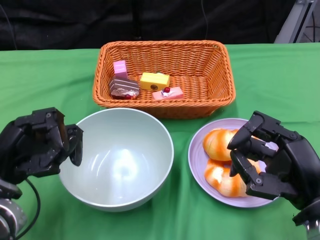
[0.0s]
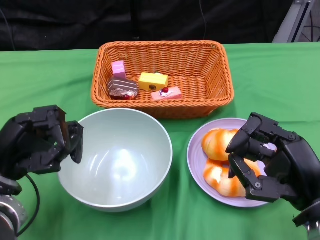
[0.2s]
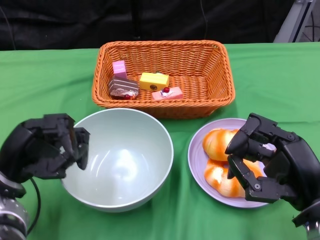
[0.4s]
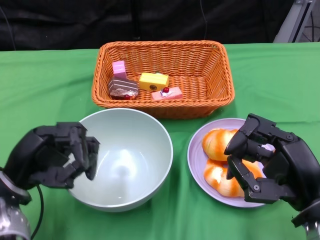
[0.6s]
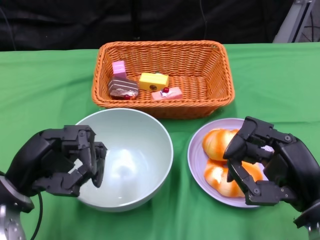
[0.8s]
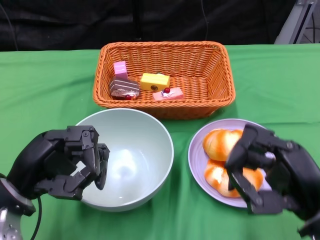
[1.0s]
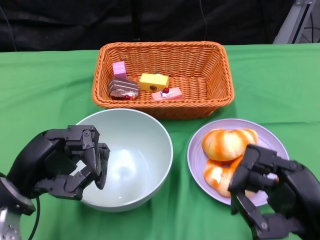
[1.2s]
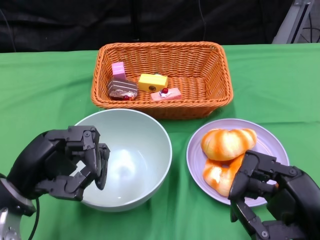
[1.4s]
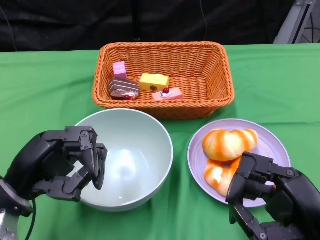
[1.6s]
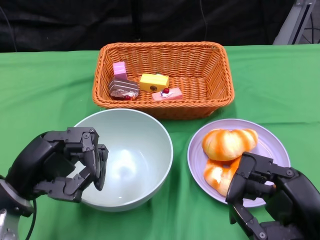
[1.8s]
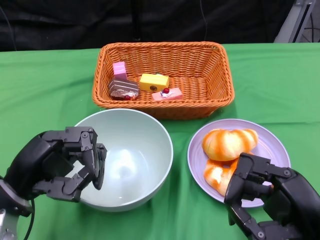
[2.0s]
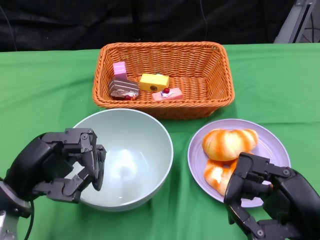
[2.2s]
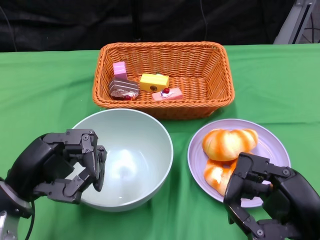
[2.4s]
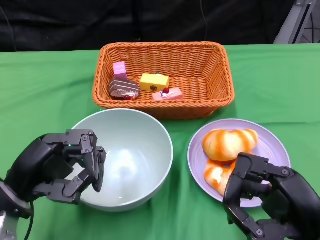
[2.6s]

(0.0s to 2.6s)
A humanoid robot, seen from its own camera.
0.0s - 1.2s: The left hand ends up approximately 5 cm from where it was.
1.2s - 2.6s: Neither hand changes place.

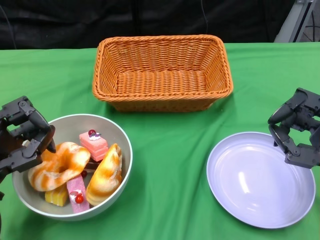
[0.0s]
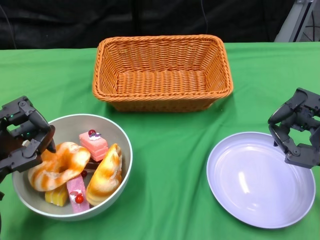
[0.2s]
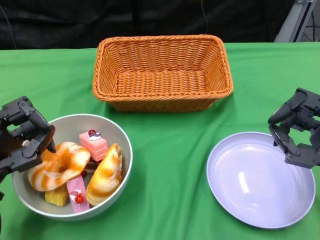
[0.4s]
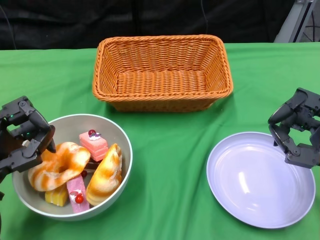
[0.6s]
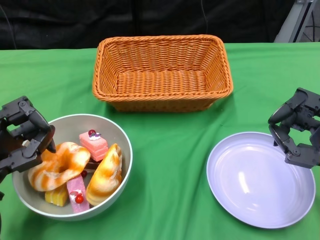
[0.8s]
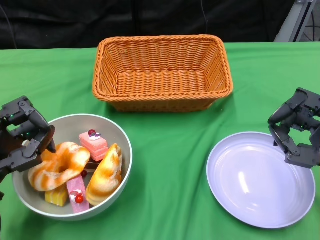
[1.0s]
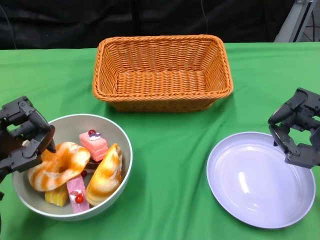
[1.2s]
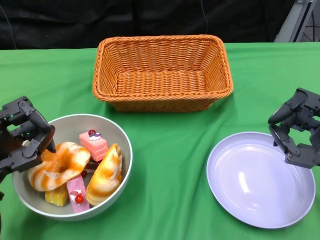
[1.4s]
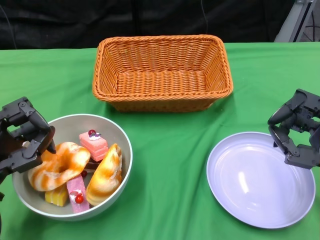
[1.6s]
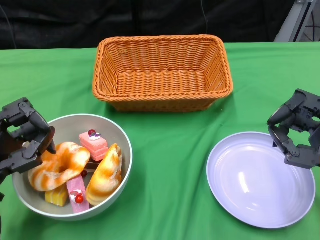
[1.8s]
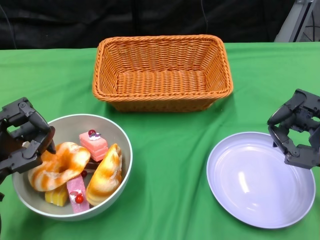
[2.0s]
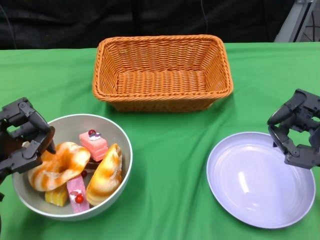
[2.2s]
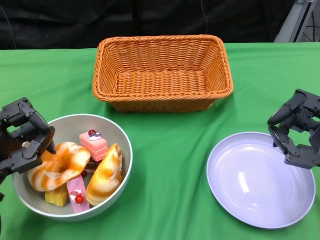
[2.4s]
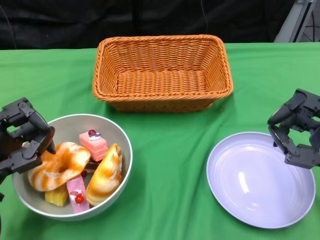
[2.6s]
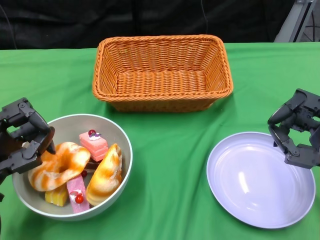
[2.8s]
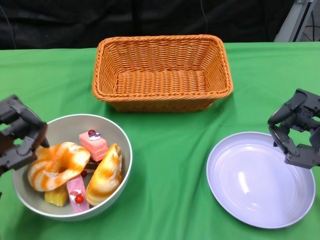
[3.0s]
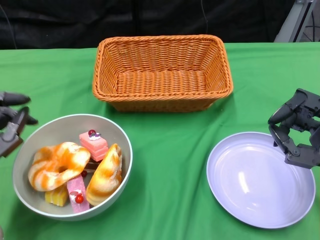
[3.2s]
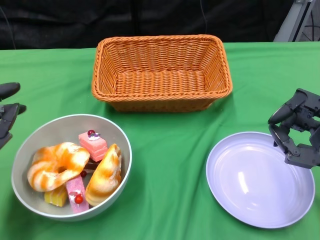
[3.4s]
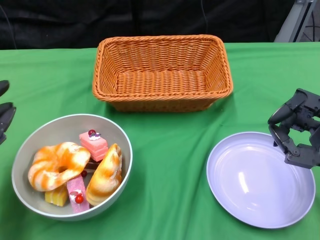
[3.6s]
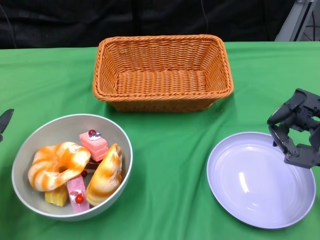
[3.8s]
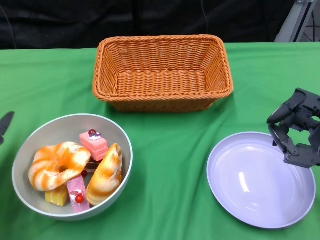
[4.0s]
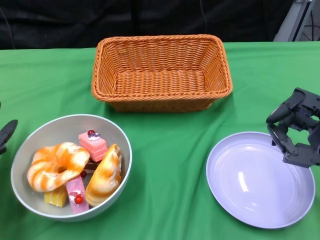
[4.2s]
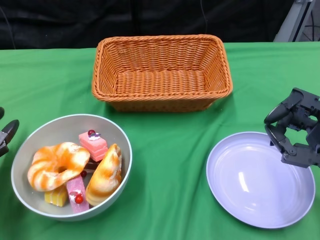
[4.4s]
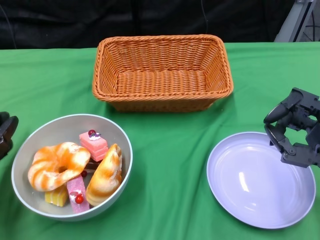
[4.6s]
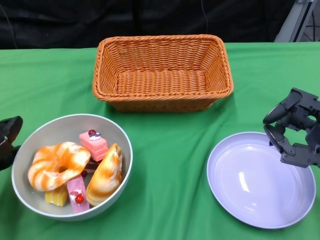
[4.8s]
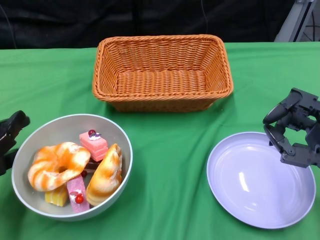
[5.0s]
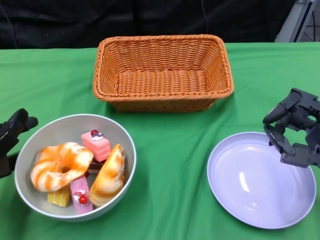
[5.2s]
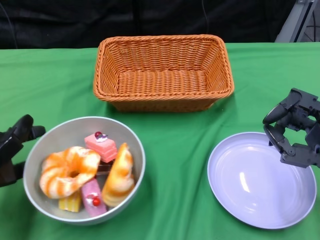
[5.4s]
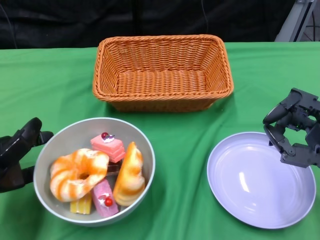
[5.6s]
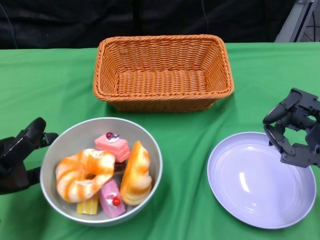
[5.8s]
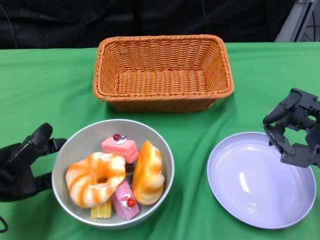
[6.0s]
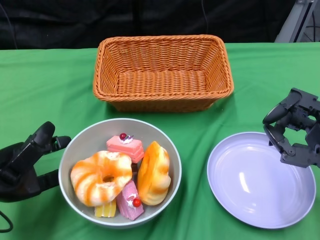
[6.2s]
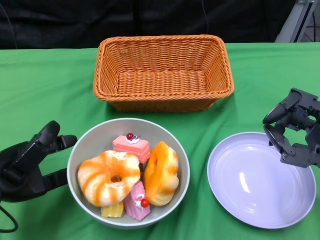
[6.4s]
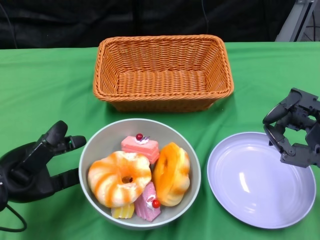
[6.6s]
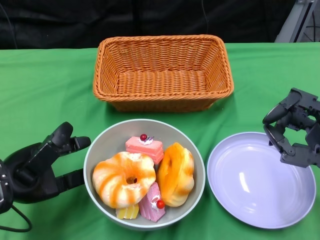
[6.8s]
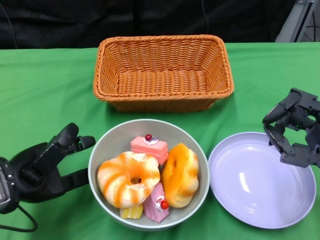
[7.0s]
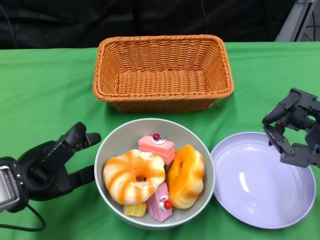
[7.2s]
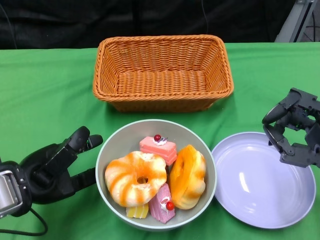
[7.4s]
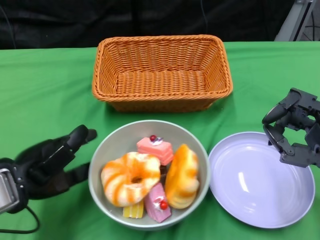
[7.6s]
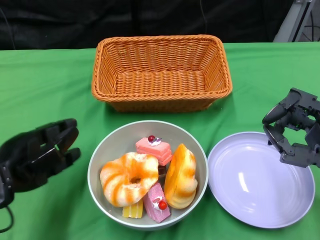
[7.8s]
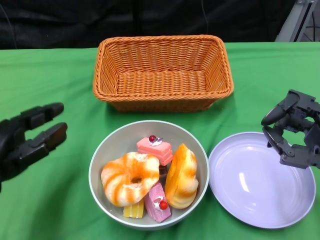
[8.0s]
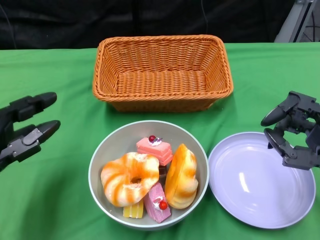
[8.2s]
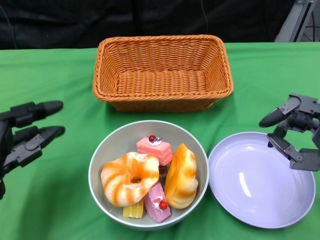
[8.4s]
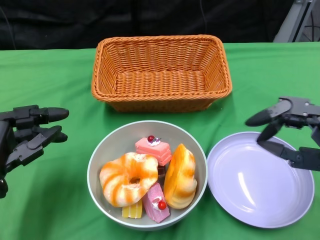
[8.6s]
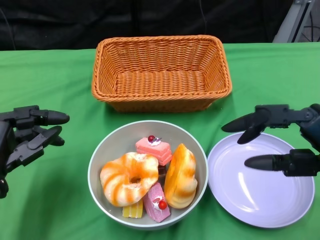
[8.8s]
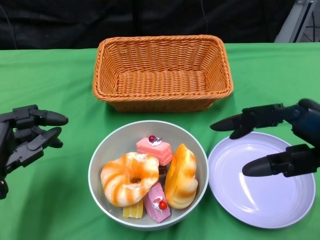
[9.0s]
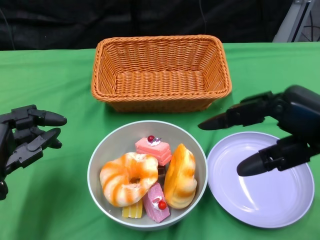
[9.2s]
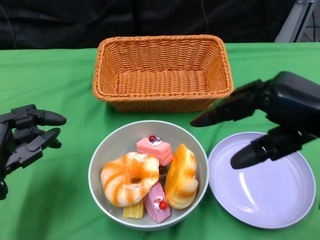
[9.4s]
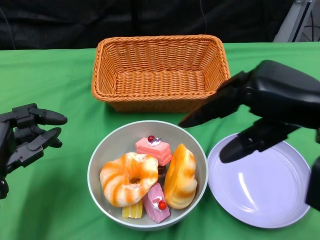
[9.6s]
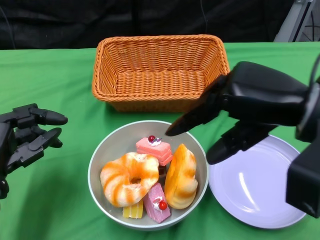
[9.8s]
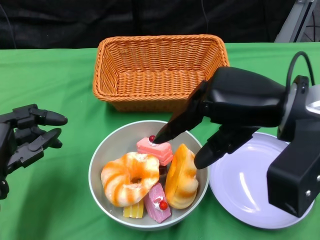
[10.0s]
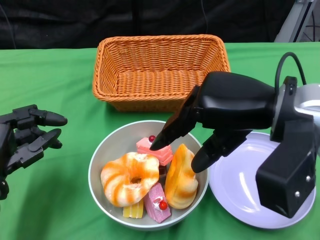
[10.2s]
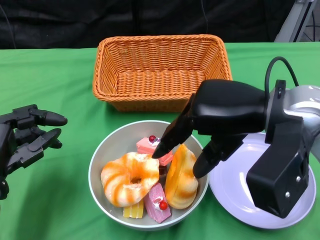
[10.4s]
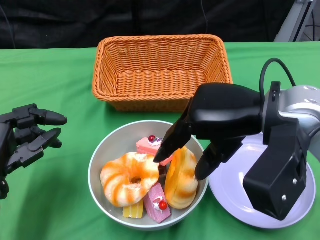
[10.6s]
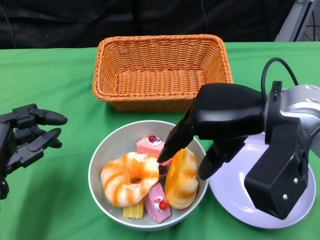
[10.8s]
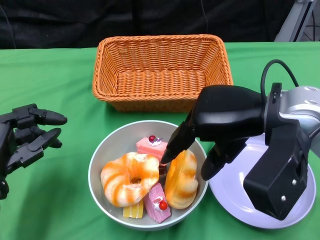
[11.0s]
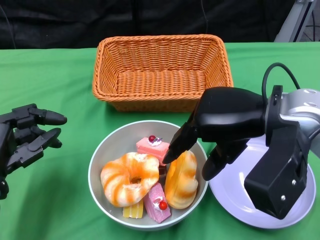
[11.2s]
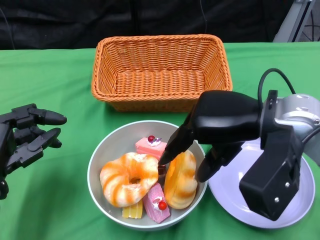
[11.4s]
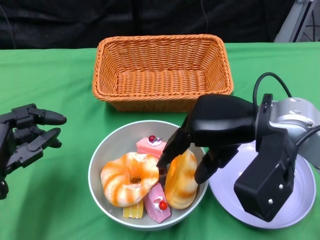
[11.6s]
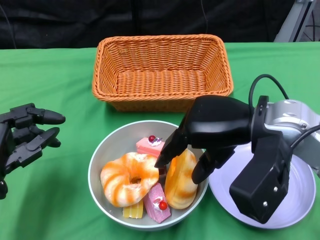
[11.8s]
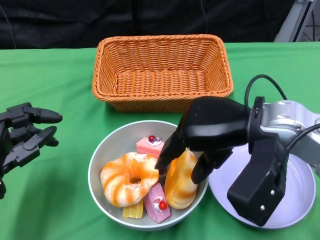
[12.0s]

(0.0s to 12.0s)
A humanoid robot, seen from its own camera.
Step, 0.0s - 8.0s: Push the bowl to the center of the table using the left gripper.
1.6s - 3.0s: The hands make only small movements.
3.0s - 4.4s: The left hand ends up roughly 5 cm from where it was.
7.6s - 9.0s: The right hand shifts approximately 10 cm upward.
9.0s - 10.4s: The right hand is displaced to the left and forward by approximately 10 cm.
10.4s - 12.0s: The hands make only small movements.

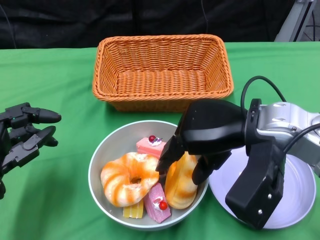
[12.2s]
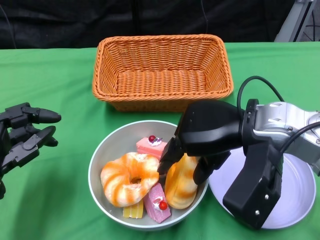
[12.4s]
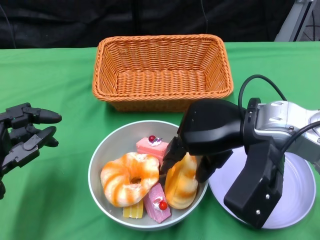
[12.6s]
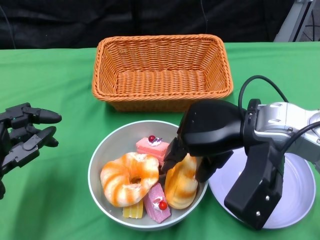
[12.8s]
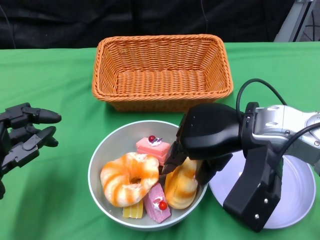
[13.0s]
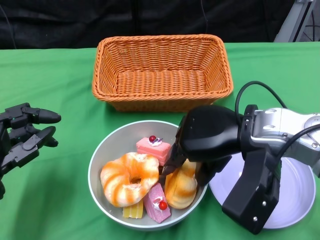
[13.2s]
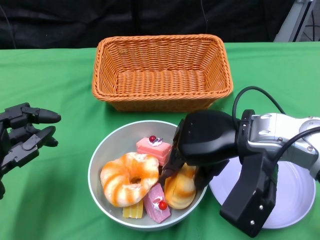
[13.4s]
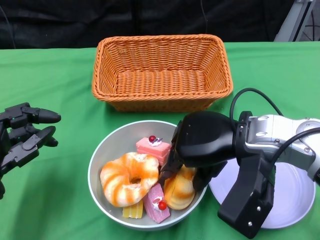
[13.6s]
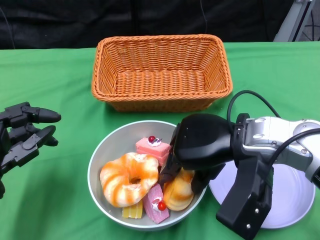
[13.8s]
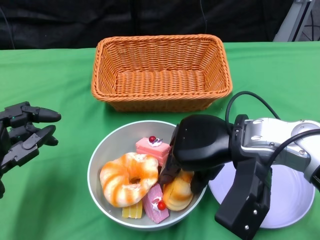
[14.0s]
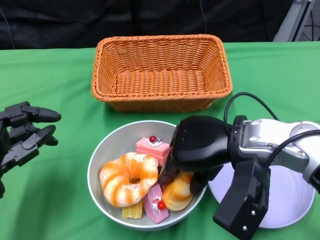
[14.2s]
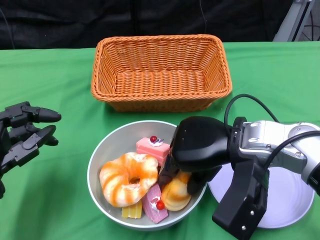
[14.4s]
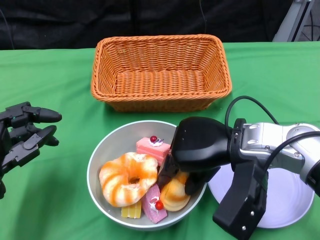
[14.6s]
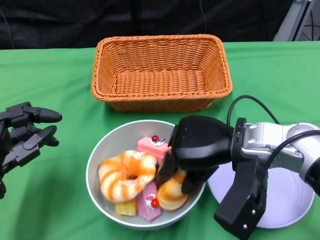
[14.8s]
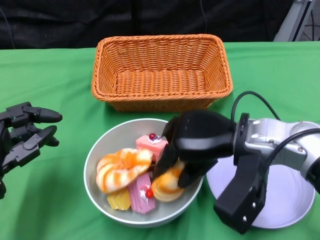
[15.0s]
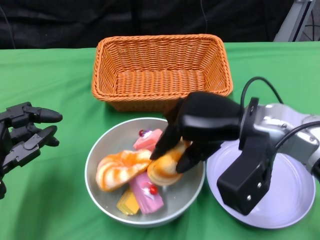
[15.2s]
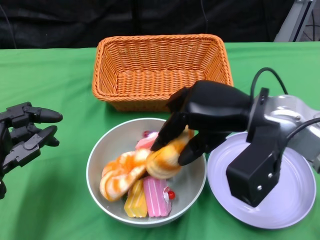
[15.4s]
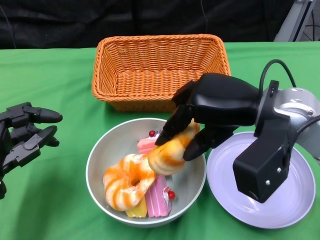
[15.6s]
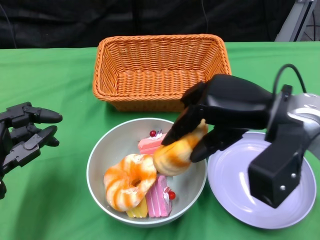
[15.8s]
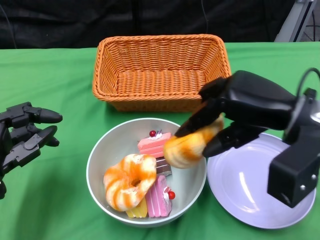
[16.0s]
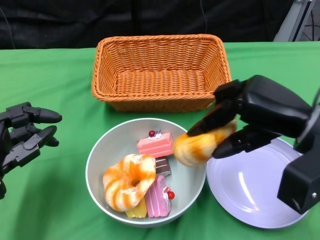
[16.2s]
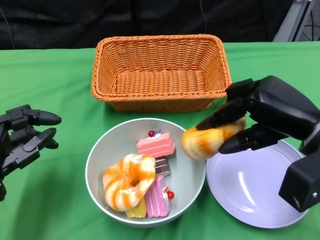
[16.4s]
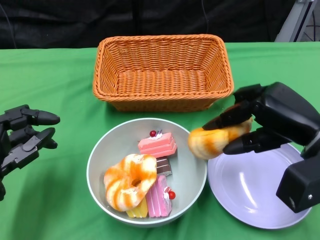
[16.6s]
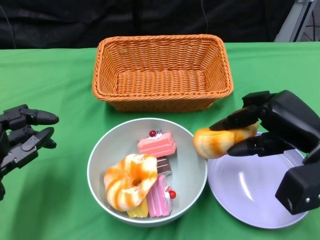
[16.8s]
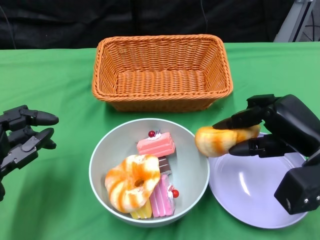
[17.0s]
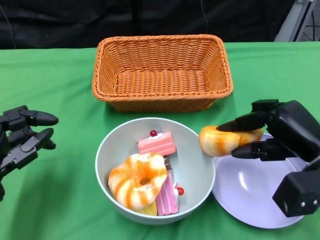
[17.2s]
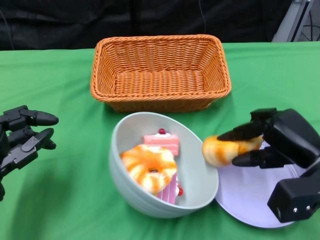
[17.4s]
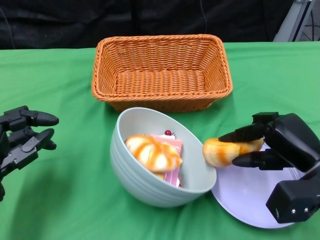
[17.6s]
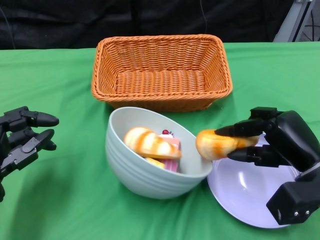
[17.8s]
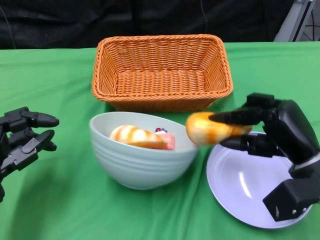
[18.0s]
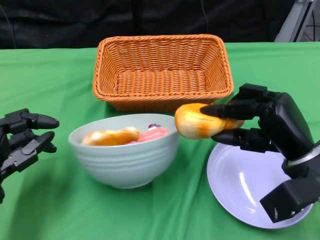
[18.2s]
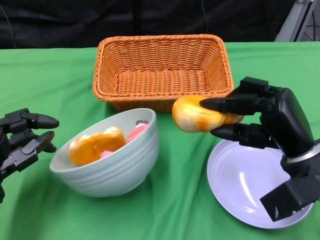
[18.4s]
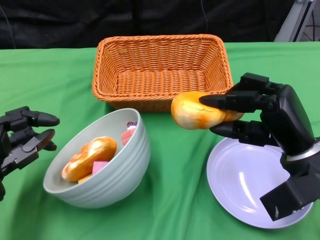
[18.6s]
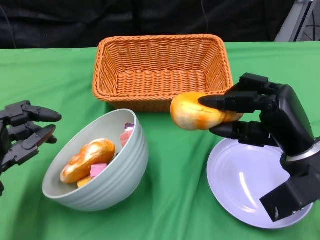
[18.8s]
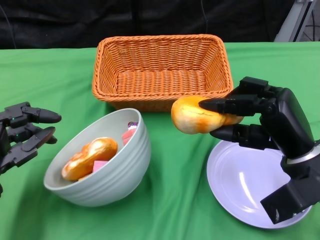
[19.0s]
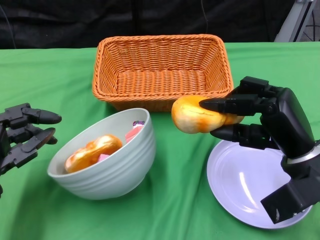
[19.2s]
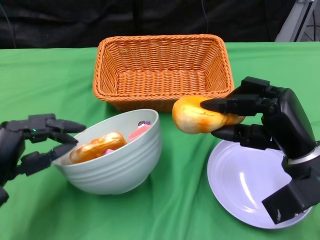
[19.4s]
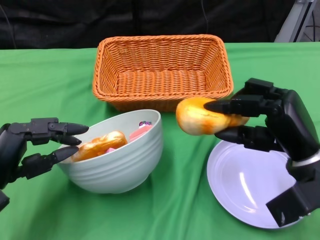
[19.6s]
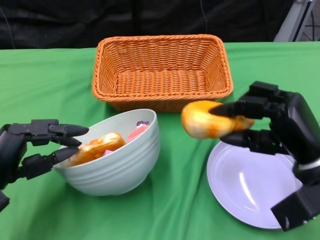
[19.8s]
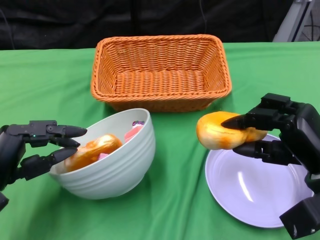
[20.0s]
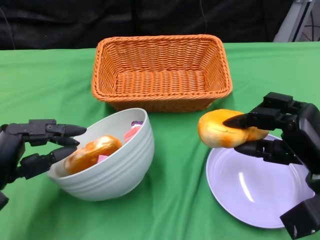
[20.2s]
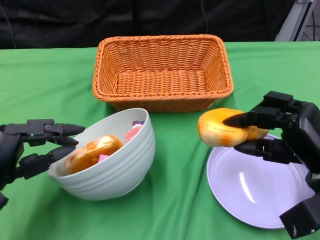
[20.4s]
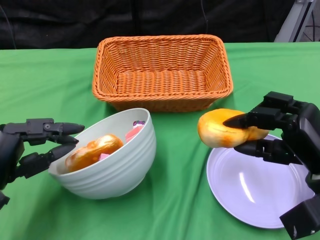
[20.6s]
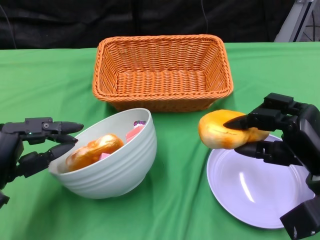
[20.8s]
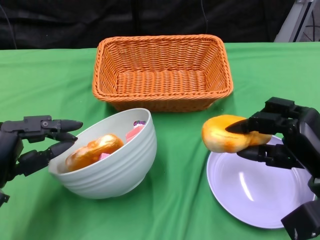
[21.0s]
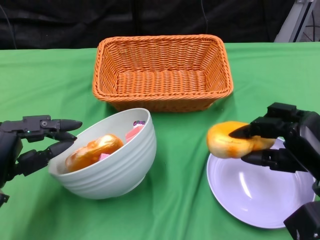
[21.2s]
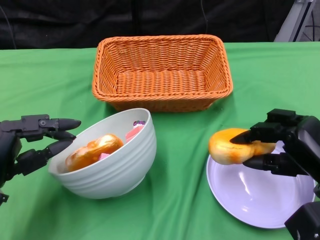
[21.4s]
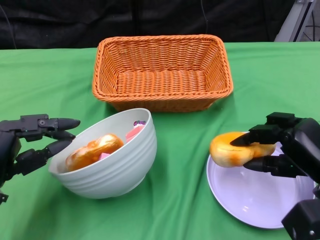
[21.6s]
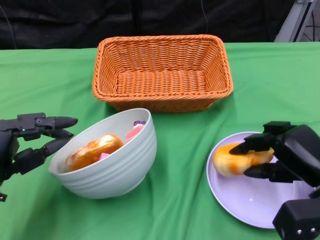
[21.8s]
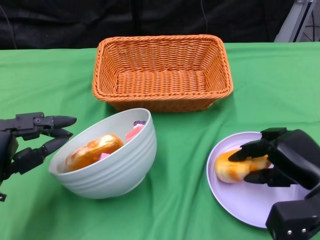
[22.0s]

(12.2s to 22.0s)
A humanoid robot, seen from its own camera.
12.2s - 15.0s: The hands move only a little.
15.0s - 16.4s: The right hand heads to the right, covering about 10 cm.
16.4s - 17.8s: The right hand heads downward, covering about 10 cm.
